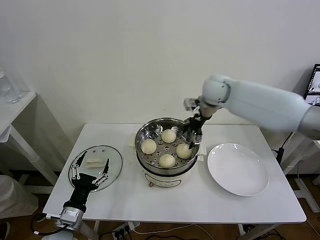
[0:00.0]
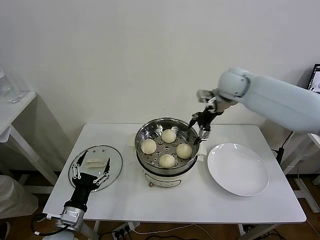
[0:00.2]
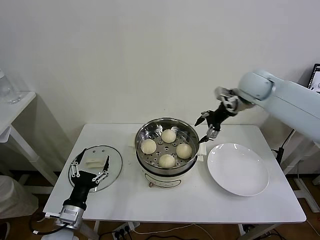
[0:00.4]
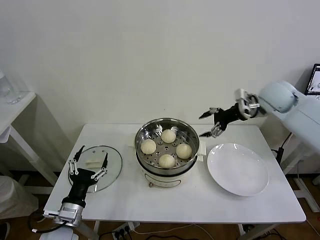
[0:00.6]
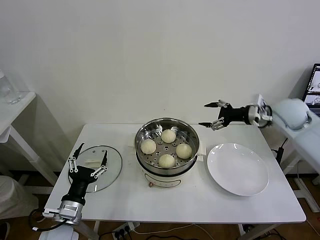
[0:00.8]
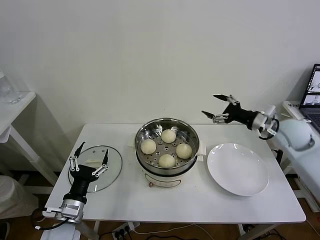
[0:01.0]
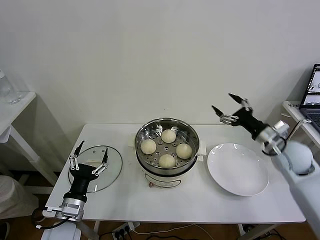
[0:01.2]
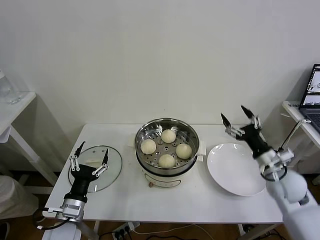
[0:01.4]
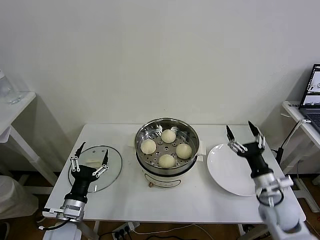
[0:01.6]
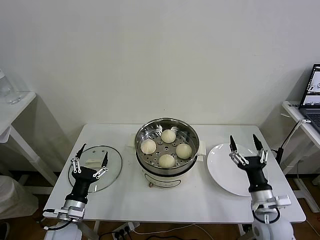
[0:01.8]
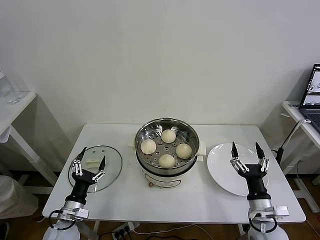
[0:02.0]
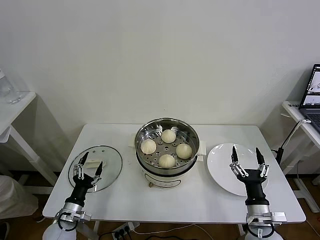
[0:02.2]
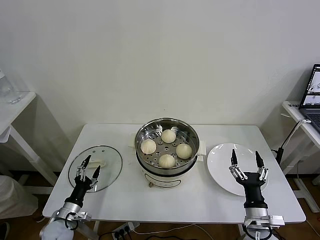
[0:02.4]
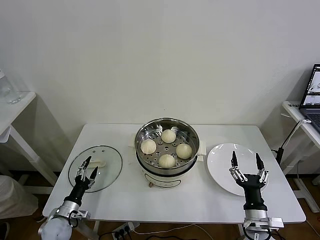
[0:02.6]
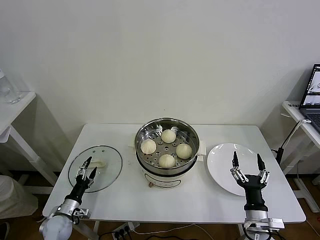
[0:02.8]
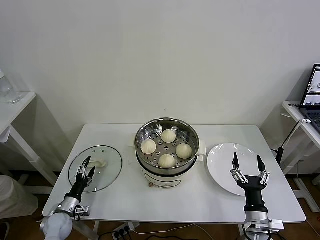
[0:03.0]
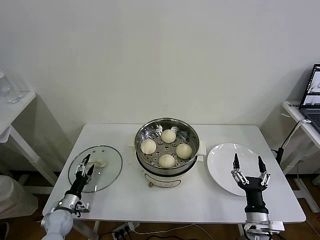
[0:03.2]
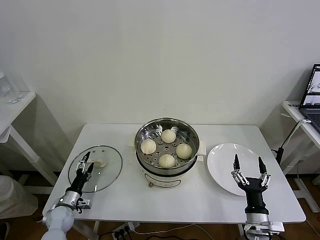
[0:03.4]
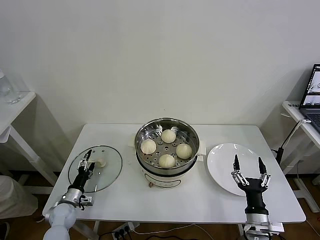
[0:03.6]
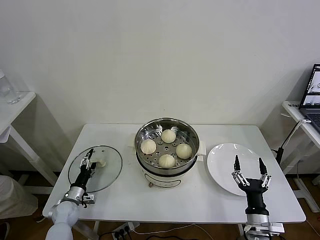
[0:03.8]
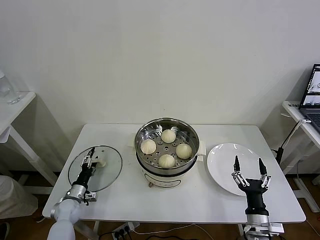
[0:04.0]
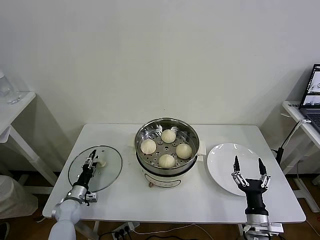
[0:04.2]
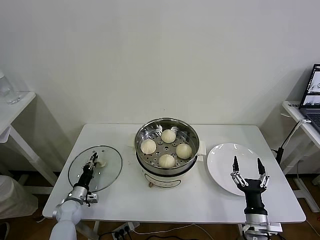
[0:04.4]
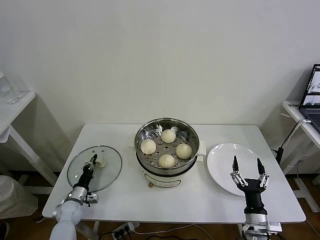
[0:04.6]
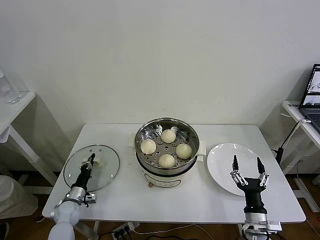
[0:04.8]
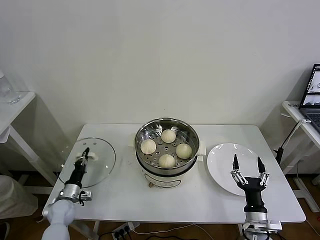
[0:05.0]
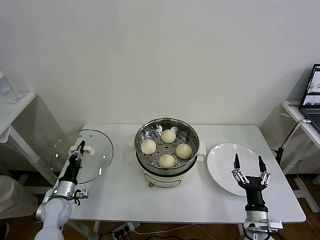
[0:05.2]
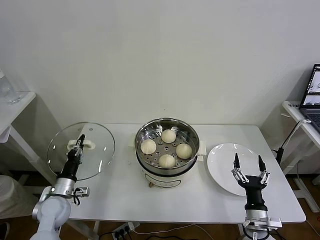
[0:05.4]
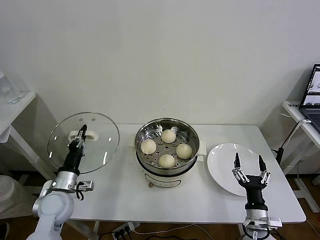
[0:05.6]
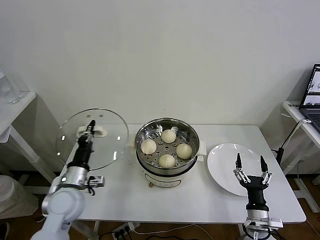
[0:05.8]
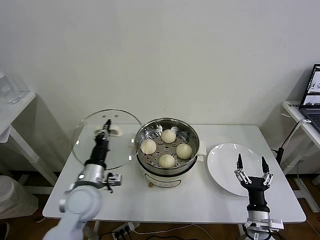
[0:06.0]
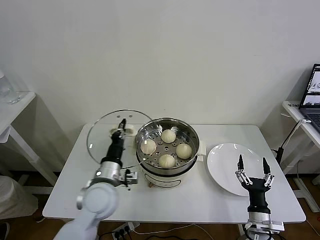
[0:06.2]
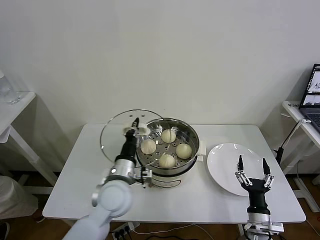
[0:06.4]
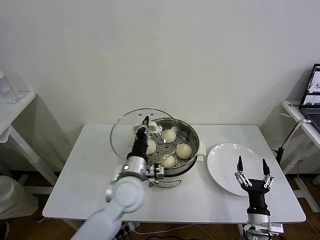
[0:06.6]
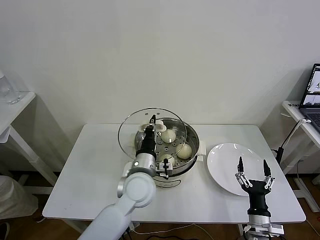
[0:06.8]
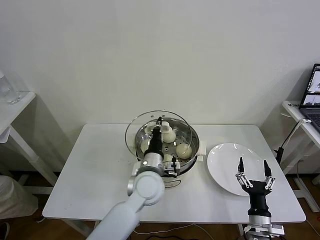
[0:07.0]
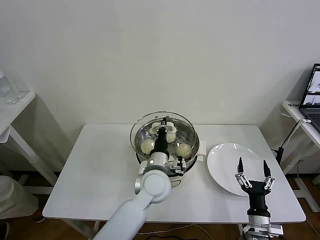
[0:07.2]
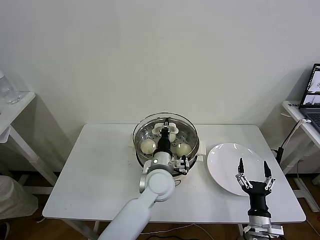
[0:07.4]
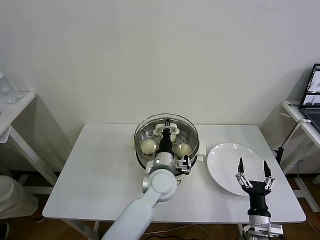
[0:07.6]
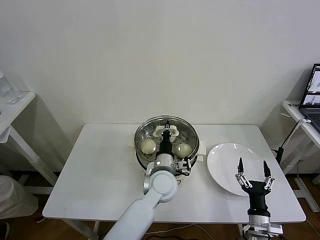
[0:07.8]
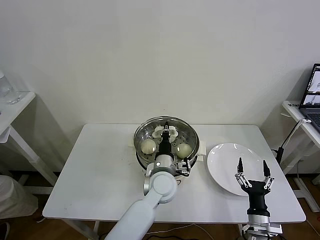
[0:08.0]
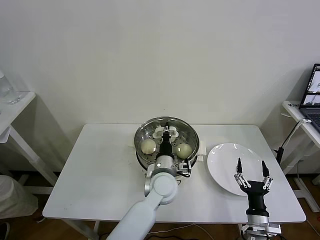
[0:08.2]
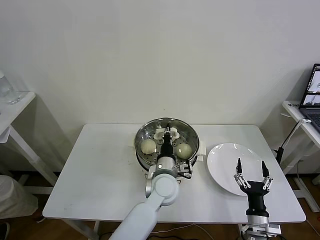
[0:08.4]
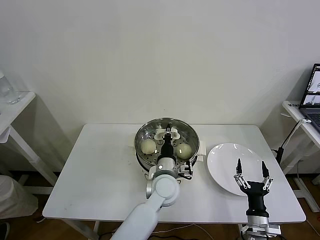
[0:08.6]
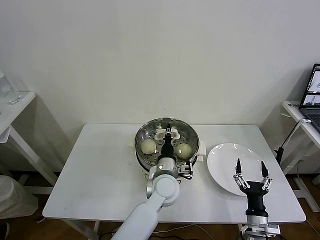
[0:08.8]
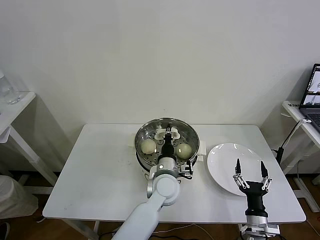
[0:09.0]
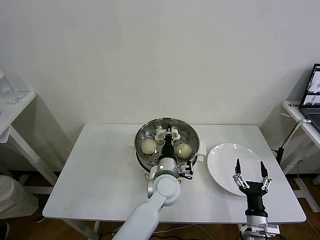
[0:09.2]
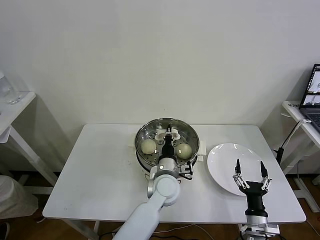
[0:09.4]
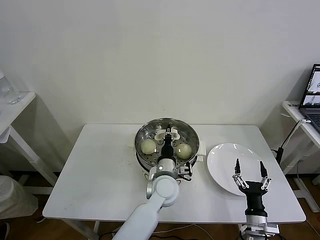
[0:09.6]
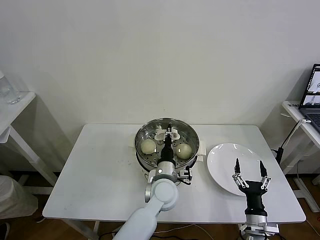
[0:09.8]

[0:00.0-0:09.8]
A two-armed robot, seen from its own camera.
Task of the whole recording: take steamed baozi put them in steamer then cover it.
Step, 0:00.0 to 0:04.6: Grasp the pot lid with left gripper.
0:00.0 to 0:01.4: The right gripper goes approximately 35 cm backward, downward and to the right.
0:01.4 to 0:02.8: The left gripper shifts about 20 cm downward and to the left, while the right gripper heads backward, downward and to the left, covering approximately 20 cm.
0:02.8 to 0:04.2: The left gripper is displaced forward by some 5 cm, and closes.
0:04.2 to 0:05.6: The left gripper moves upward, some 20 cm, and closes up.
0:05.6 to 0:07.0: The left gripper heads to the right, covering about 30 cm.
0:07.0 to 0:08.4: The left gripper is displaced to the right by roughly 5 cm.
0:08.4 to 0:09.8: The grippers stay close to where they were, moving slightly.

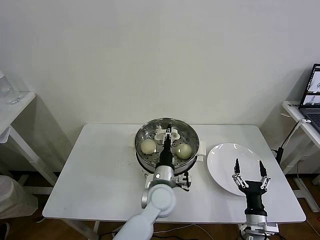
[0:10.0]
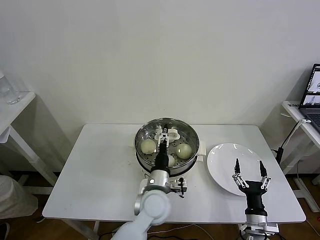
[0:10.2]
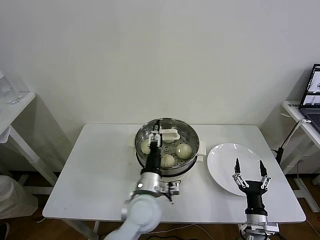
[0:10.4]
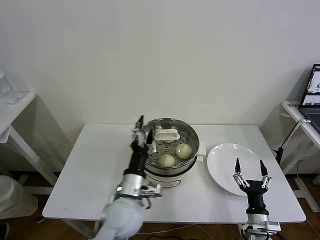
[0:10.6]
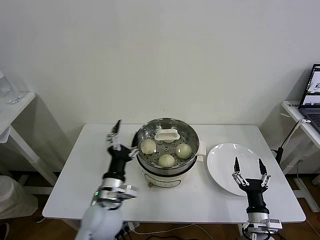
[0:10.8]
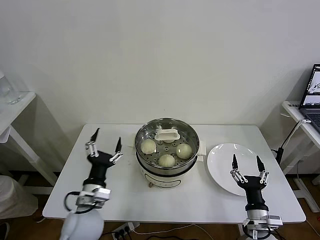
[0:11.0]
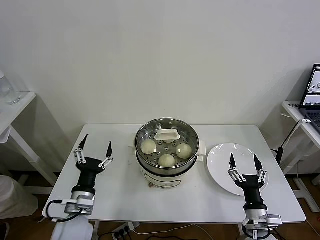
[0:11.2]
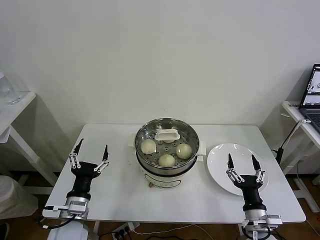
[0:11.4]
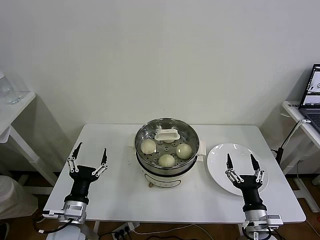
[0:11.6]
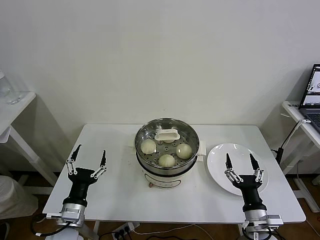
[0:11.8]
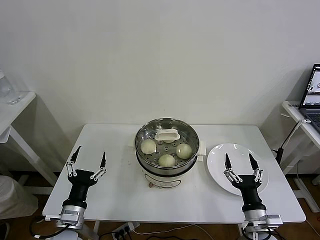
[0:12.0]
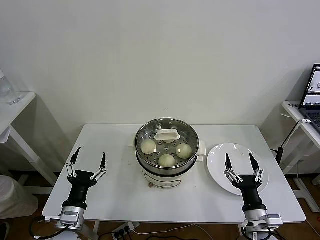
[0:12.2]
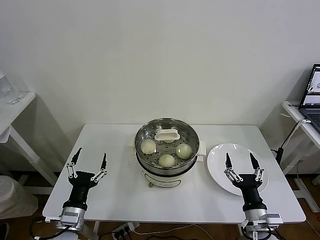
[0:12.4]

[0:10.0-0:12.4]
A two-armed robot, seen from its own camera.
Task of the whole recording: take steamed baozi put them in steamer then cover it.
0:10.0 to 0:11.2: The left gripper is displaced to the left by approximately 25 cm, and opens its fingers.
0:11.2 to 0:12.4: The left gripper moves approximately 5 cm.
